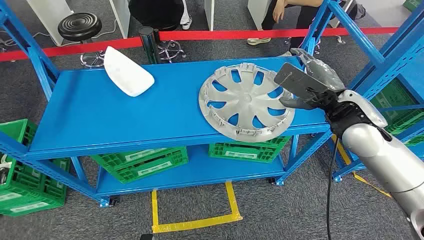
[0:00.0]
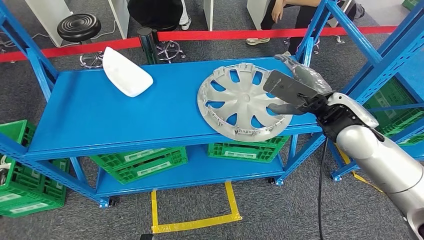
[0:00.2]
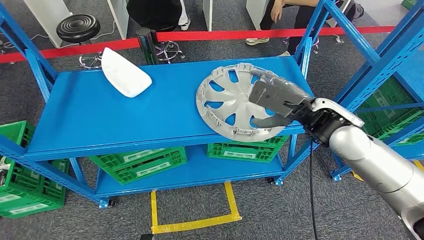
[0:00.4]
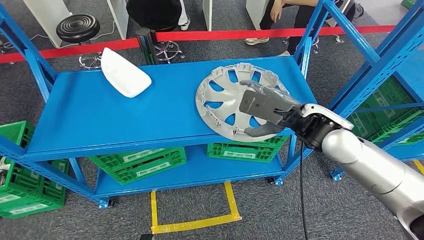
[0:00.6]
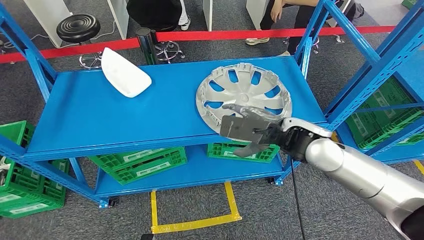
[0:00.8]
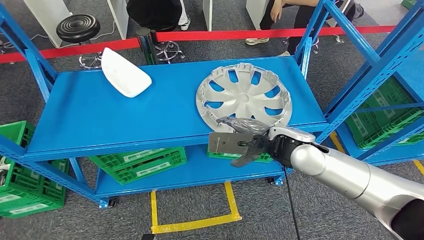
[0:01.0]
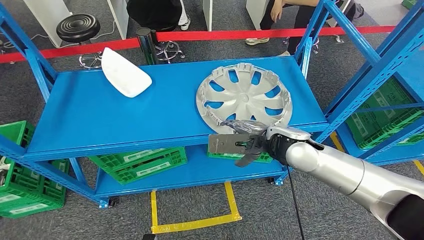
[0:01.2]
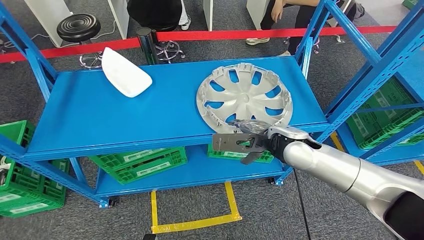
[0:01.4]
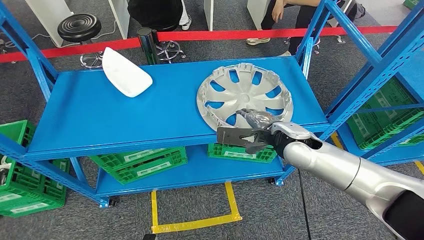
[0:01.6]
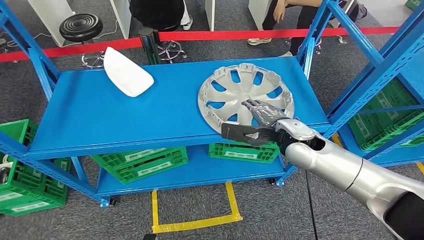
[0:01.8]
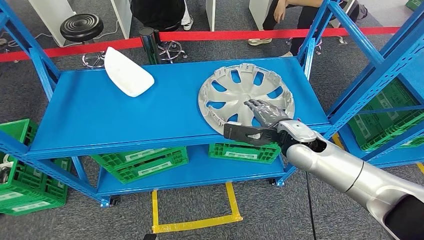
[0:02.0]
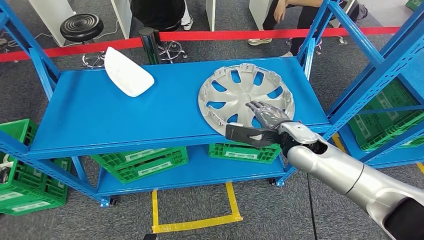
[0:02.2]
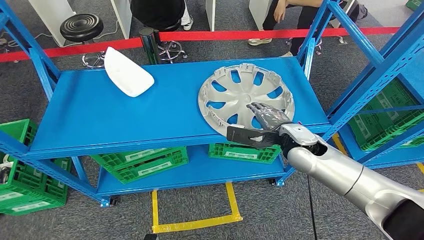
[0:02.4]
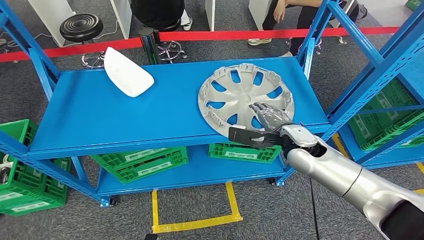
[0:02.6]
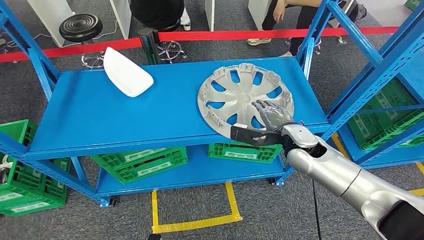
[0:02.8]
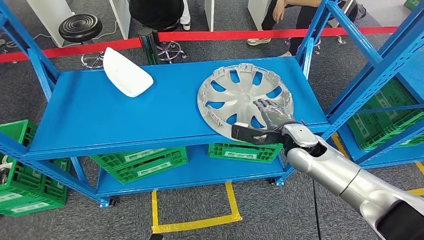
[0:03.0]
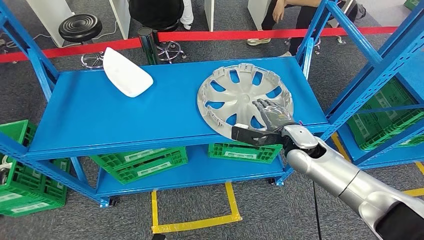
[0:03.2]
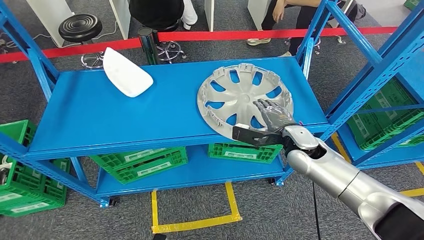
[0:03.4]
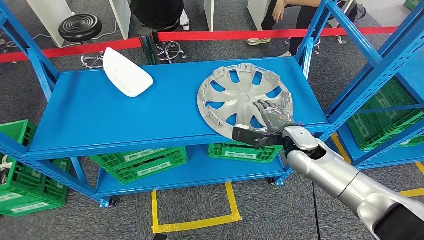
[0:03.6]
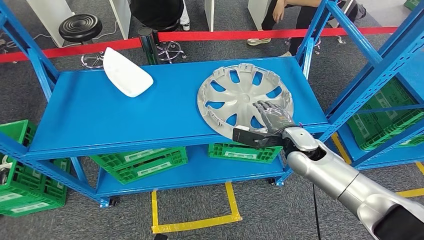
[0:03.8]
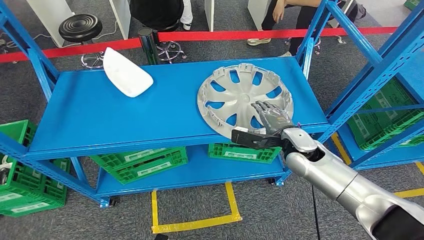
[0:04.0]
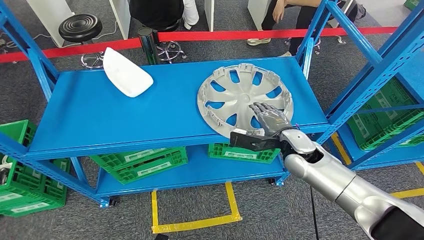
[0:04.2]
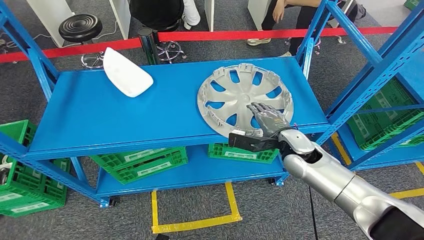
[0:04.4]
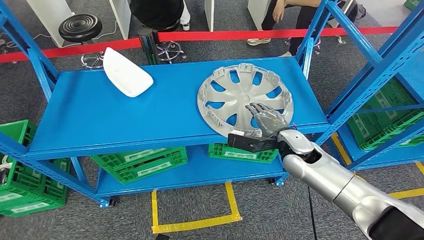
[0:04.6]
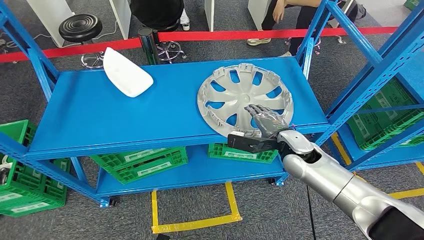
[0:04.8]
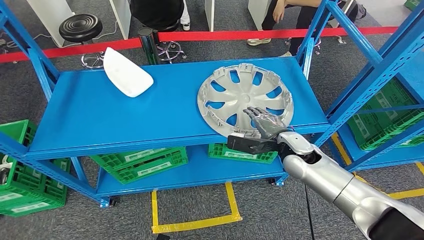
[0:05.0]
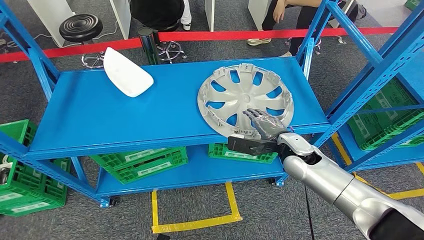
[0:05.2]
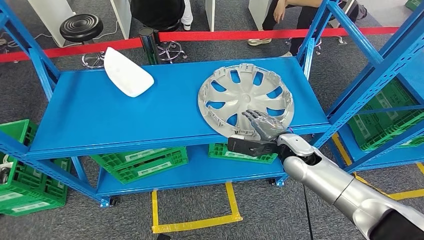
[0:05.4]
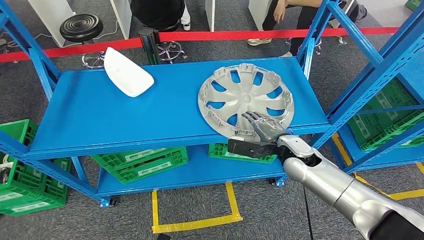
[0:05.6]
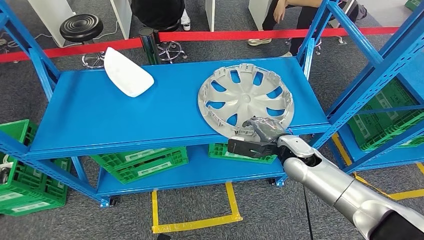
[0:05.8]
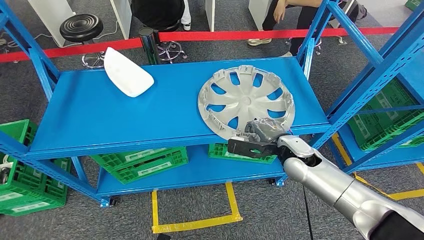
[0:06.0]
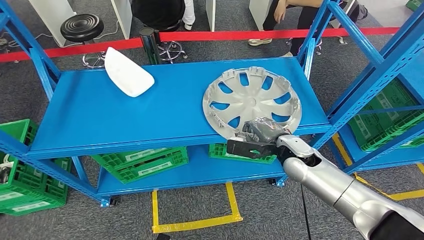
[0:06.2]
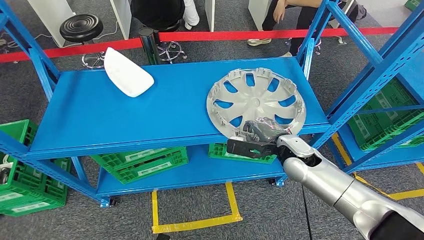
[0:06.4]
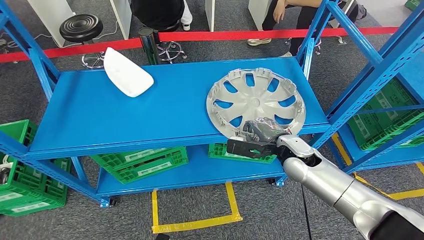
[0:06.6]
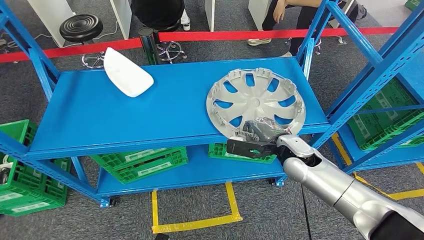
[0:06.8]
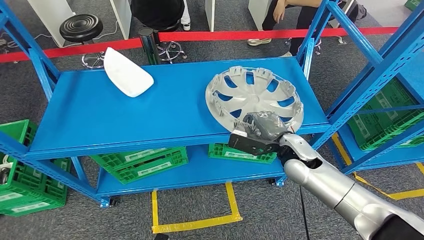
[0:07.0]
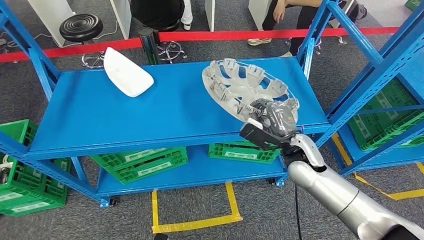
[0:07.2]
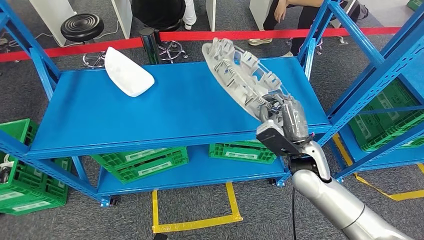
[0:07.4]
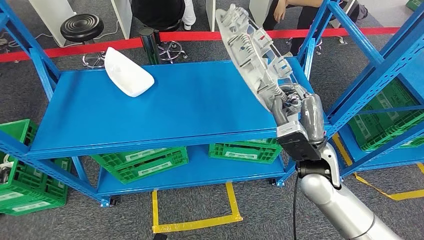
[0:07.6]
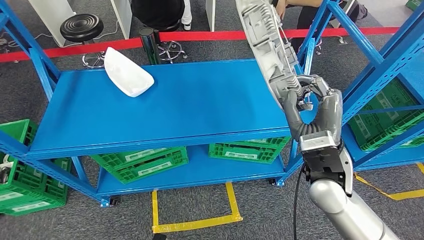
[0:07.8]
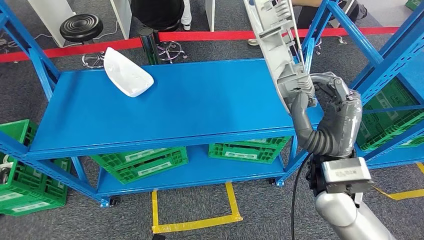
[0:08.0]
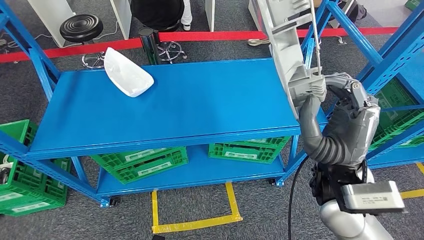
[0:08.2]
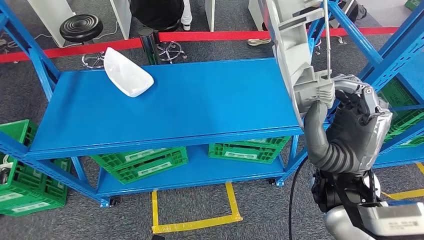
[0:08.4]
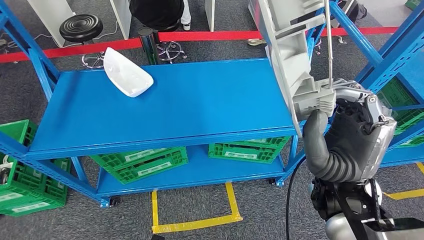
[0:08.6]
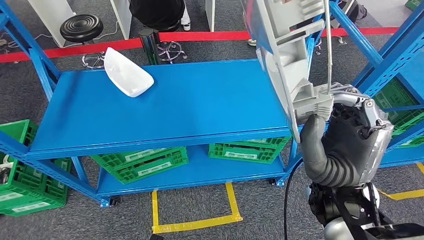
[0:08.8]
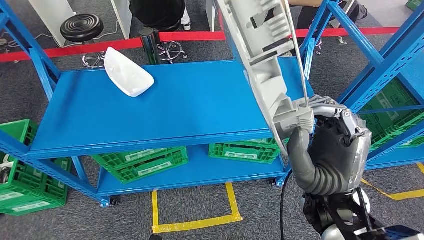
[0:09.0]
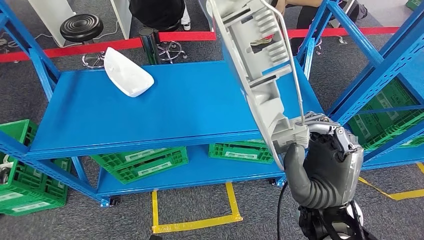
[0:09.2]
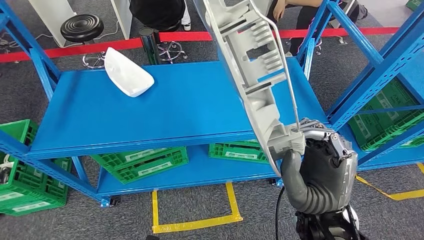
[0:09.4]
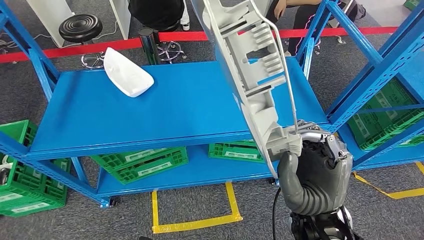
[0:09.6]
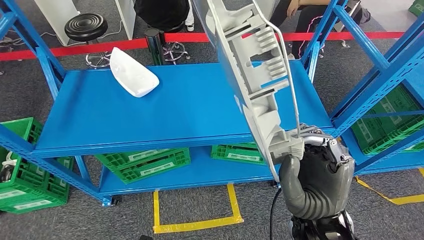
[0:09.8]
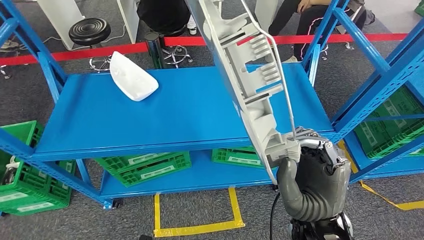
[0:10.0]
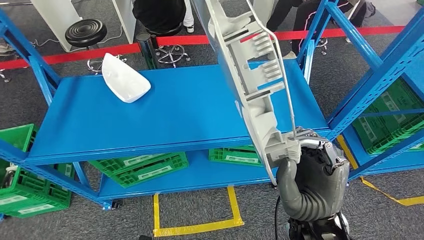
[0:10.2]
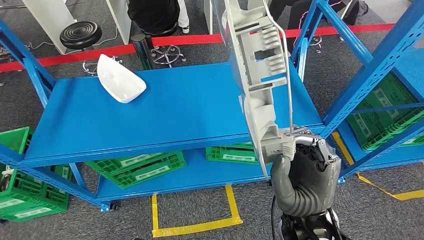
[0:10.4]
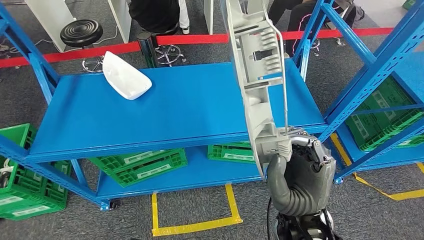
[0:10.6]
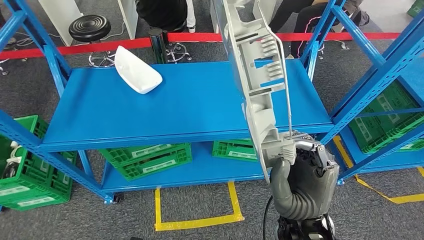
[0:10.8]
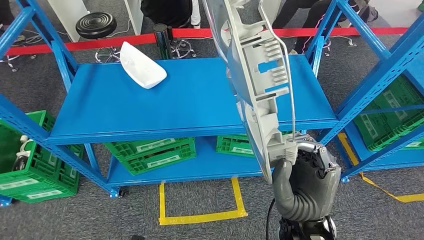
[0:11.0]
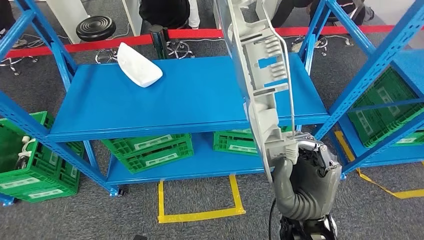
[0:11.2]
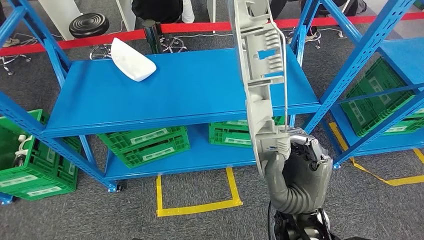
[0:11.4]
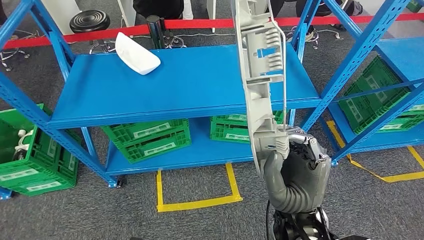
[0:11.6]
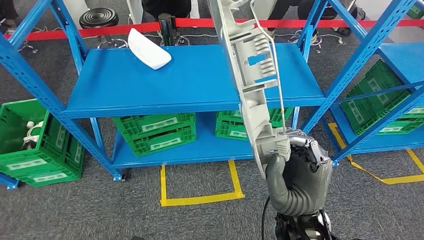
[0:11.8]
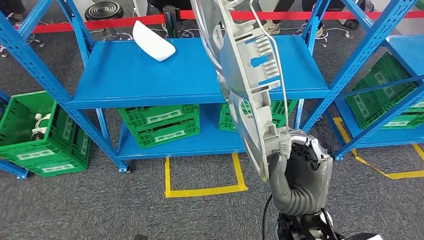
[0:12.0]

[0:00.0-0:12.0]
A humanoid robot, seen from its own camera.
Step, 0:00.0 to 0:10.6: Take small components from the rack.
0:01.6 to 0:03.0: The right hand ends up roughly 5 cm from where it was.
0:03.0 to 0:06.0: The hands move only a little.
0:06.0 to 0:07.6: The right hand travels backward and upward by approximately 10 cm.
0:07.6 to 0:09.0: The right hand travels backward, upward and to the left by about 15 cm.

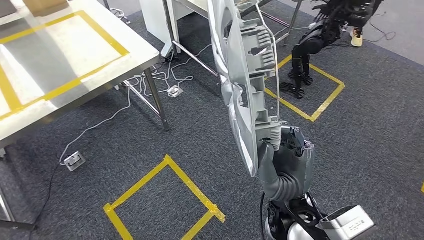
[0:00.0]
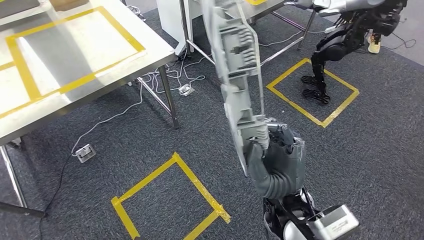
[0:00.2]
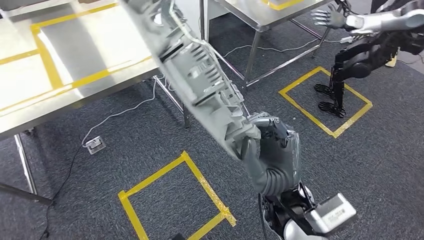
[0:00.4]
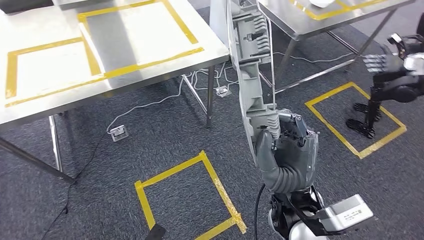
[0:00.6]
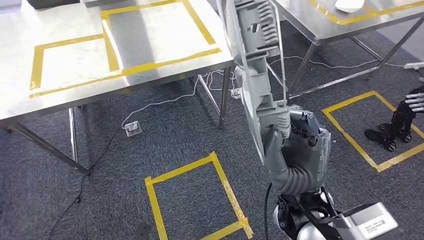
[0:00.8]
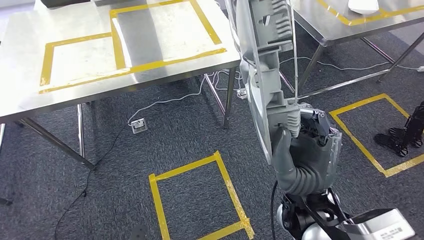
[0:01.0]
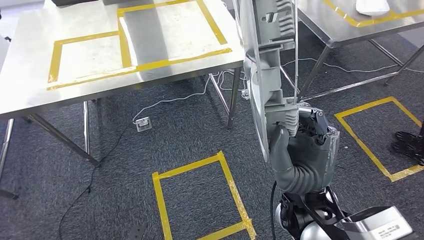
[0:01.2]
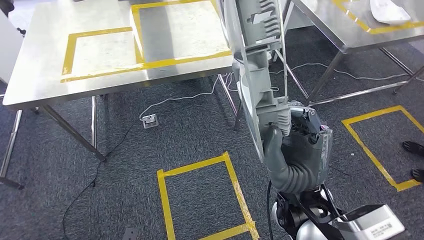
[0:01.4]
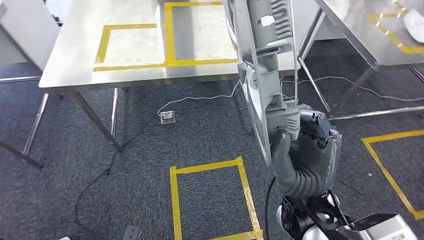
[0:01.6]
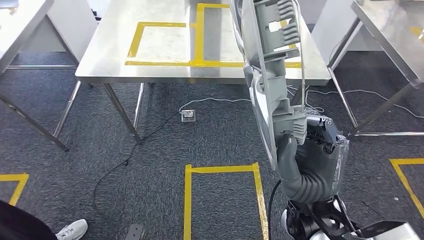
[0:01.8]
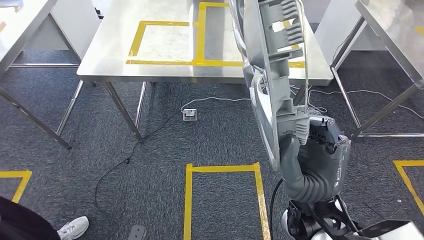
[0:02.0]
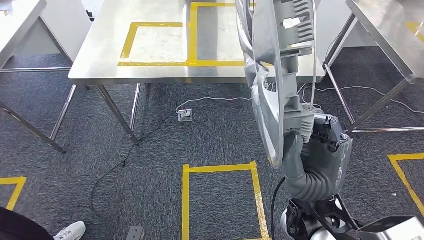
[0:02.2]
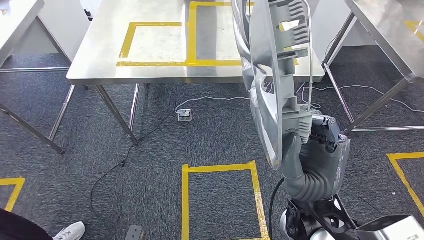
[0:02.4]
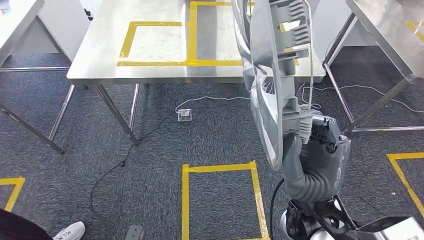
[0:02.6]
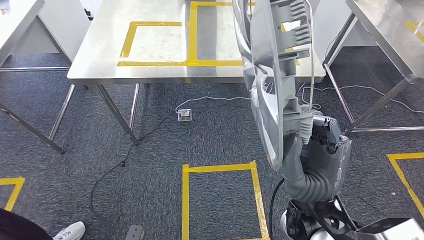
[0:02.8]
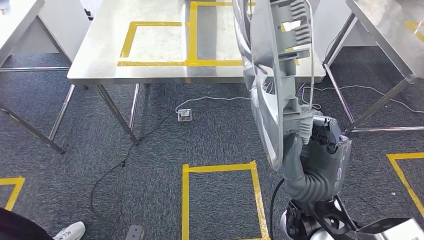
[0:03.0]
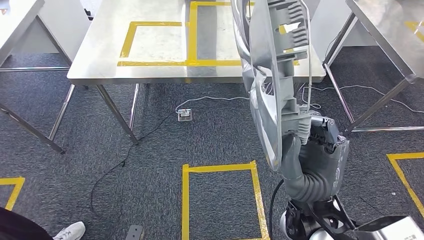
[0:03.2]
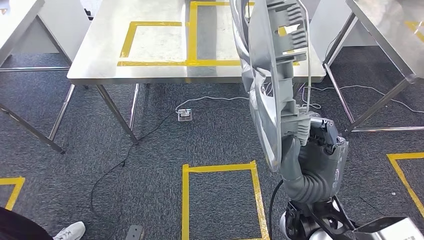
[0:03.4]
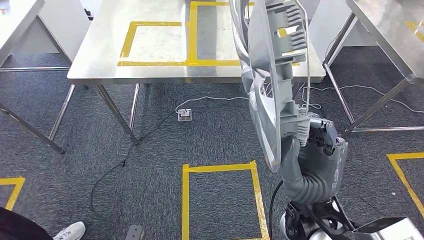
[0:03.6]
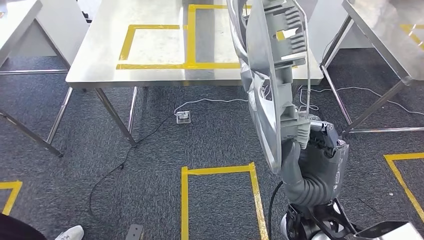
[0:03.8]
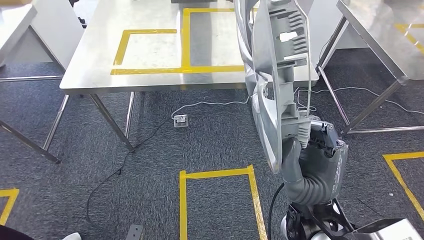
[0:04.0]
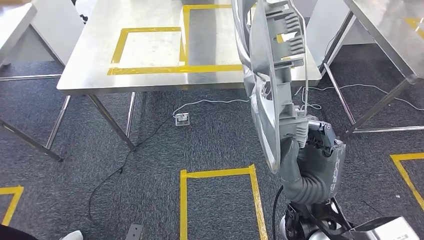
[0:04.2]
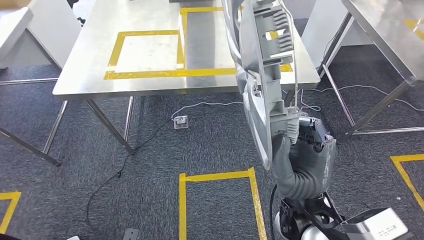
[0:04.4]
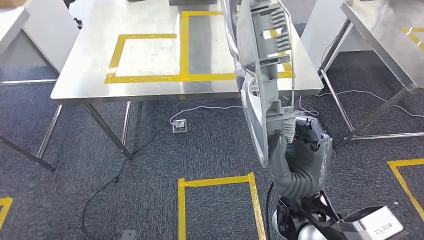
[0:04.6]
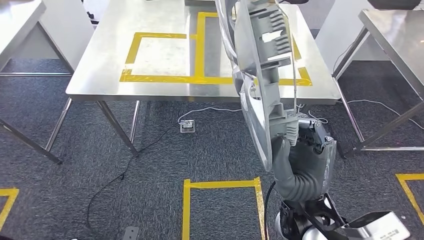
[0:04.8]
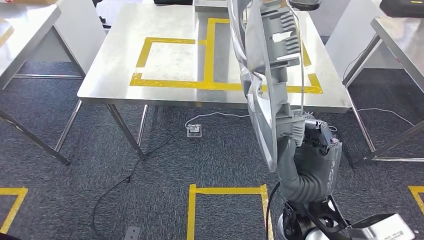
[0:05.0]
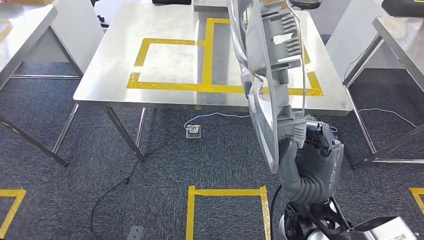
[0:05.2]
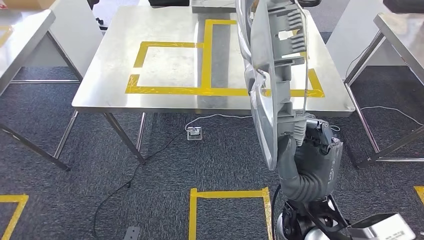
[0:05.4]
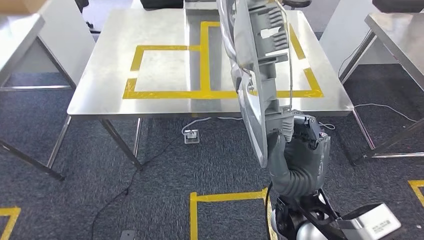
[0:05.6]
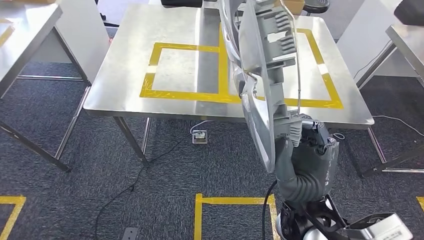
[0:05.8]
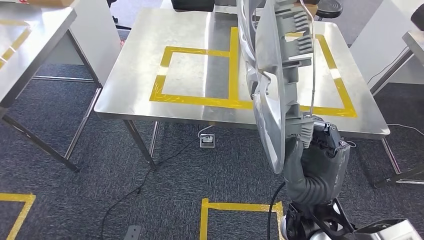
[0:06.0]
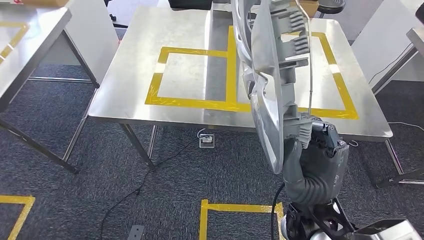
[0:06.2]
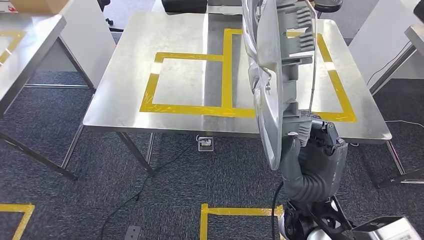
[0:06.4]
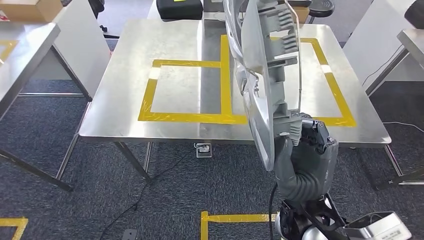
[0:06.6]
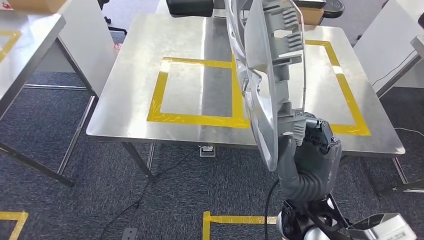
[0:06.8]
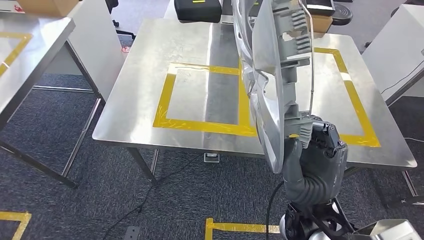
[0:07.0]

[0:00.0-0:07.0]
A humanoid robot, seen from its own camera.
Step, 0:00.0 to 0:02.4: Move the small parts to the workbench.
